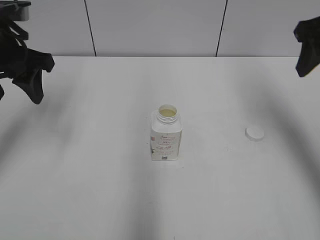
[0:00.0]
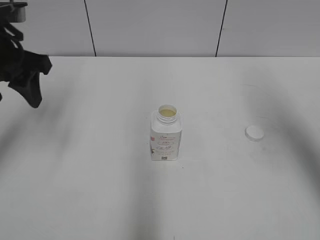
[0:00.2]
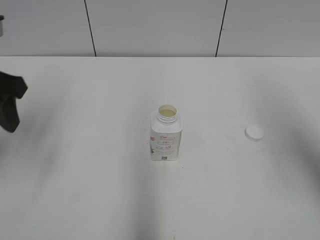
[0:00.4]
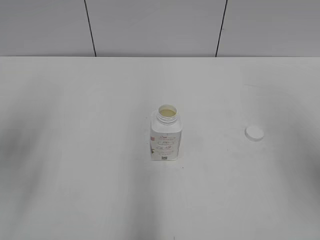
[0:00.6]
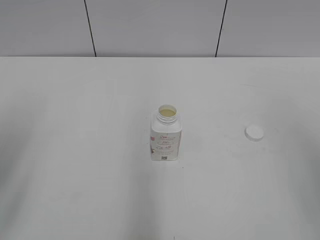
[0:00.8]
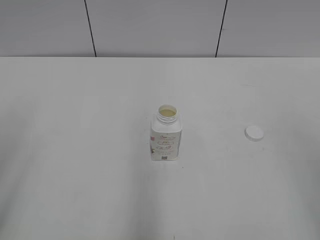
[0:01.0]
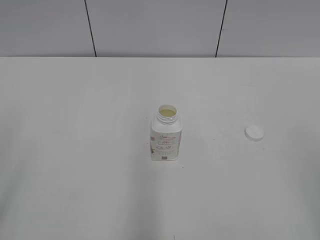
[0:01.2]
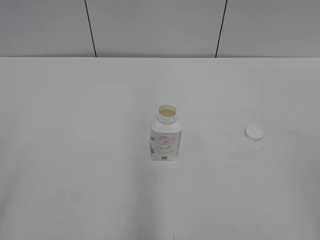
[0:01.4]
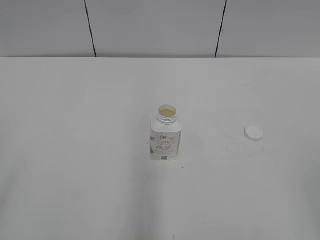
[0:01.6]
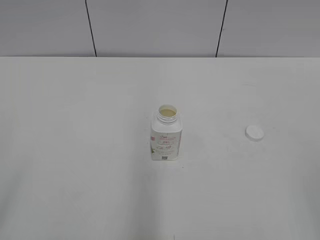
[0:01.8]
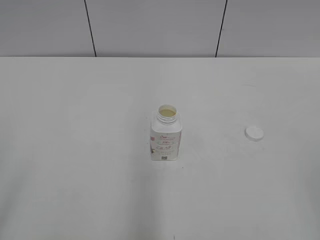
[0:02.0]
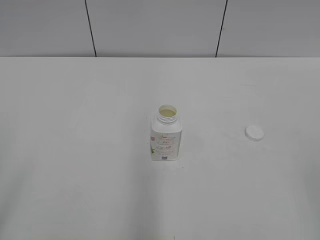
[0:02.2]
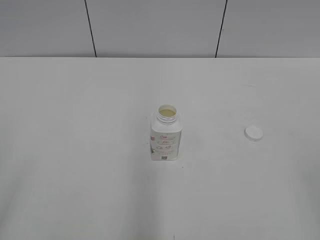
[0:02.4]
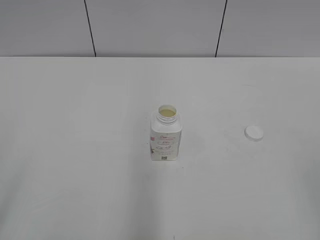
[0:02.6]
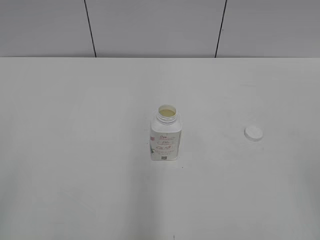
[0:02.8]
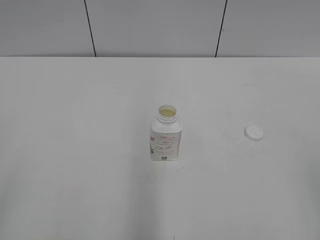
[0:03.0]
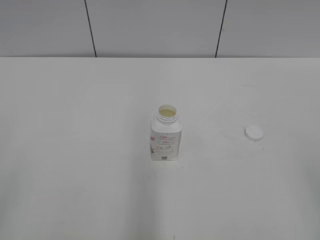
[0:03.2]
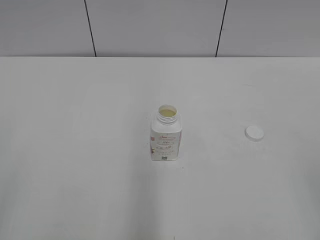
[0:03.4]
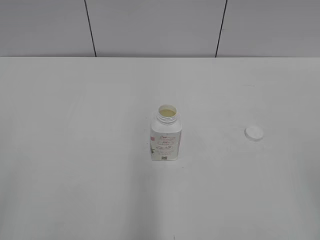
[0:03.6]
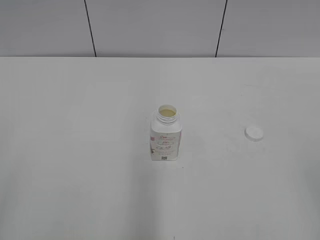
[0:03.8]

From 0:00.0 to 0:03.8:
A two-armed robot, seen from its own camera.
From 0:00.0 to 0:01.2: The grippers both shift backward by some 30 cm.

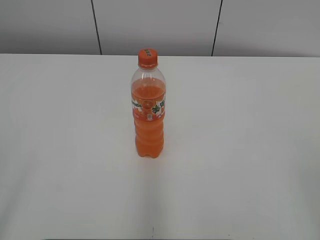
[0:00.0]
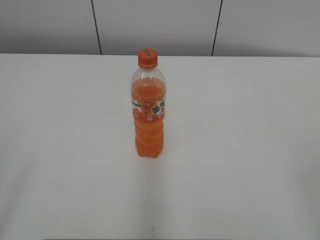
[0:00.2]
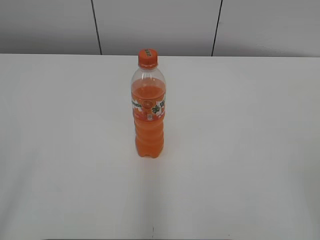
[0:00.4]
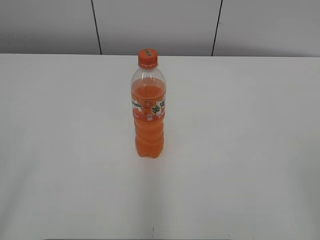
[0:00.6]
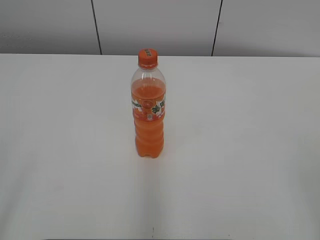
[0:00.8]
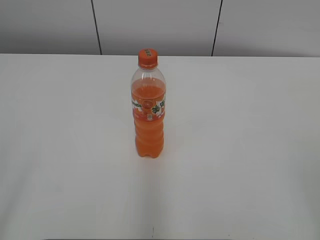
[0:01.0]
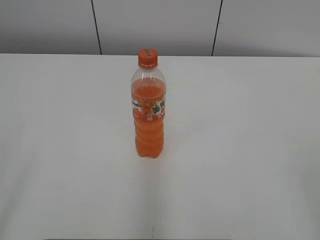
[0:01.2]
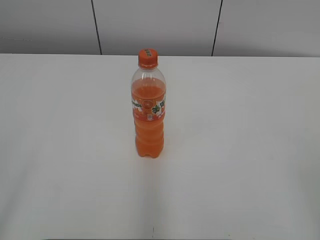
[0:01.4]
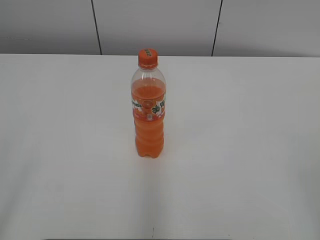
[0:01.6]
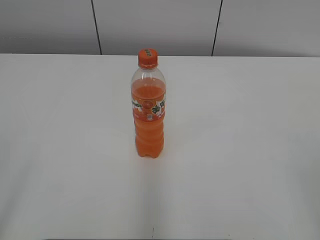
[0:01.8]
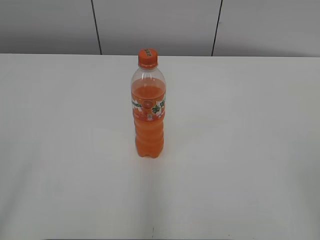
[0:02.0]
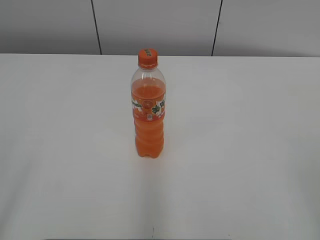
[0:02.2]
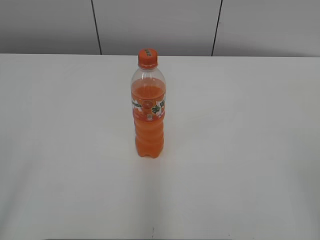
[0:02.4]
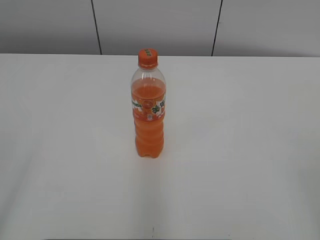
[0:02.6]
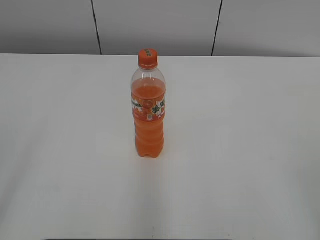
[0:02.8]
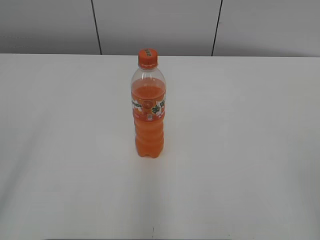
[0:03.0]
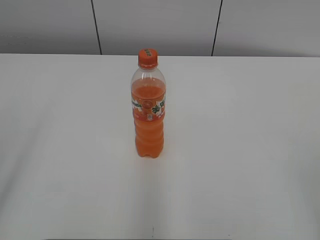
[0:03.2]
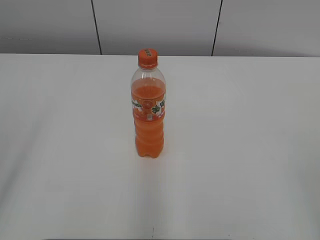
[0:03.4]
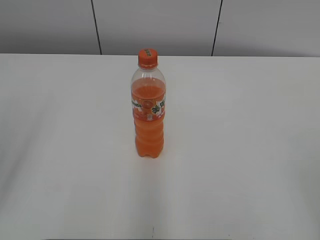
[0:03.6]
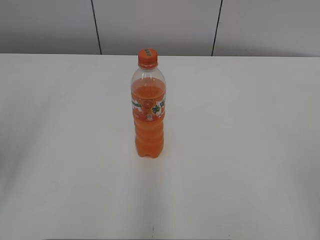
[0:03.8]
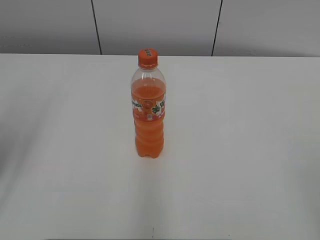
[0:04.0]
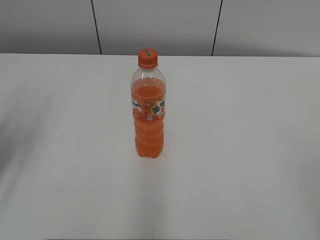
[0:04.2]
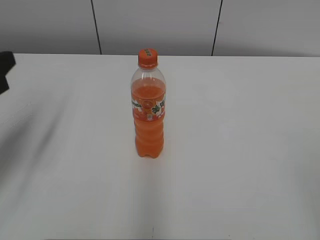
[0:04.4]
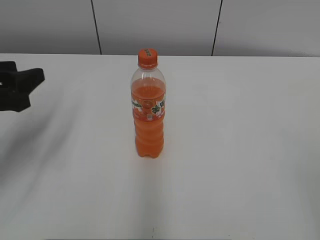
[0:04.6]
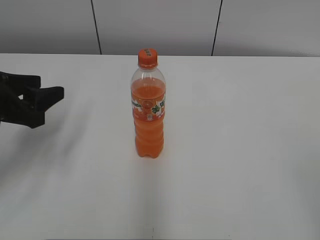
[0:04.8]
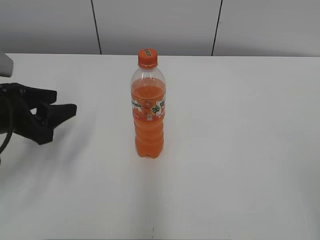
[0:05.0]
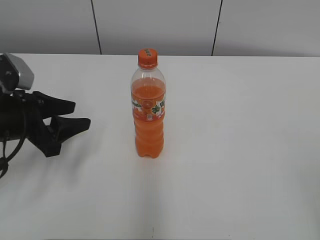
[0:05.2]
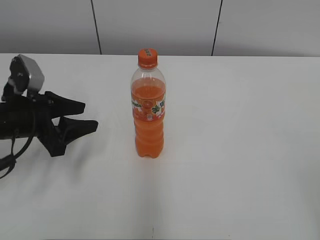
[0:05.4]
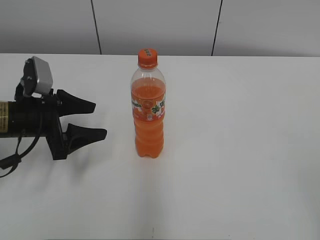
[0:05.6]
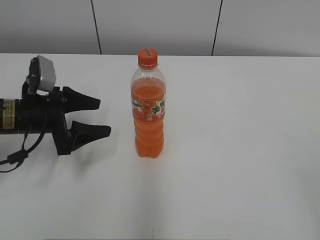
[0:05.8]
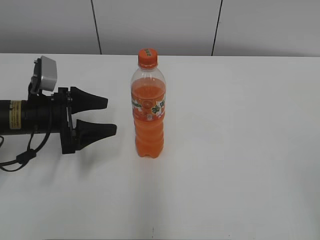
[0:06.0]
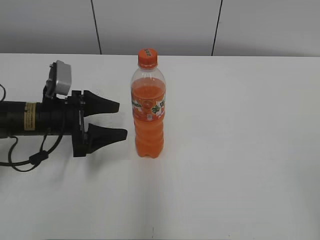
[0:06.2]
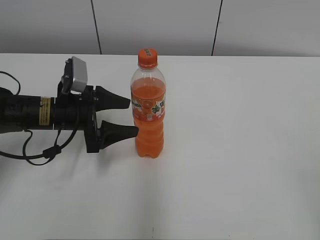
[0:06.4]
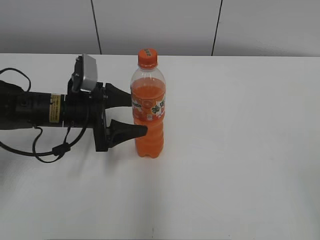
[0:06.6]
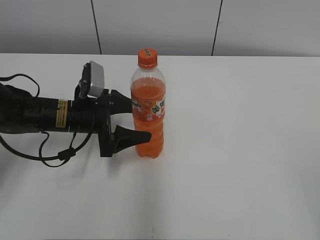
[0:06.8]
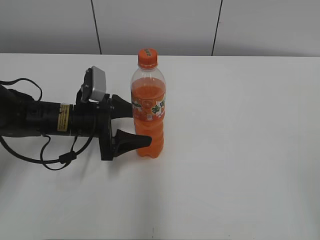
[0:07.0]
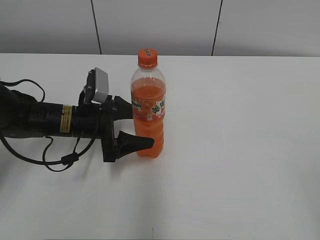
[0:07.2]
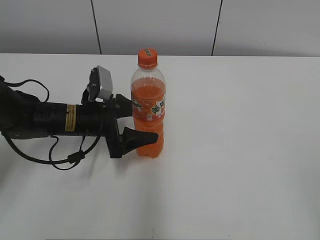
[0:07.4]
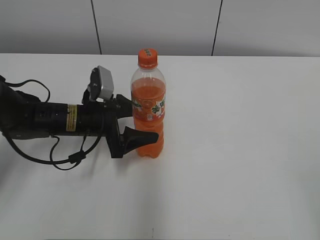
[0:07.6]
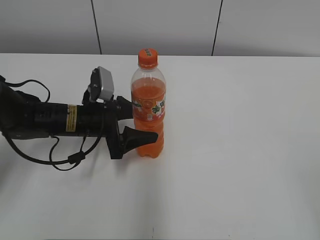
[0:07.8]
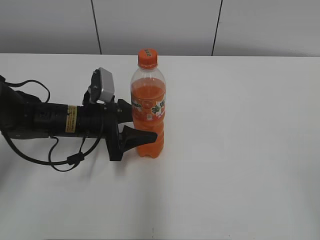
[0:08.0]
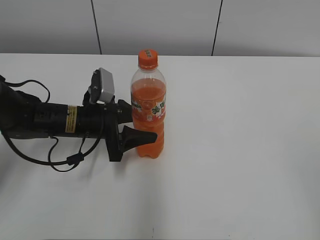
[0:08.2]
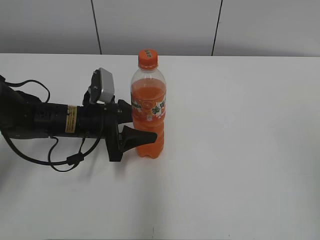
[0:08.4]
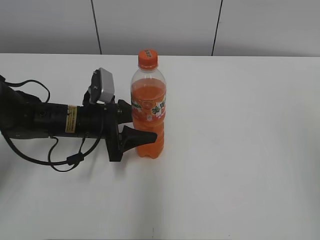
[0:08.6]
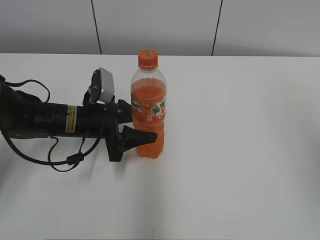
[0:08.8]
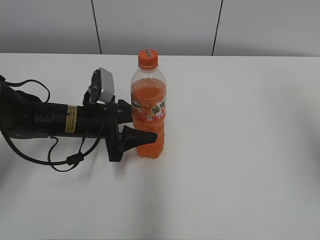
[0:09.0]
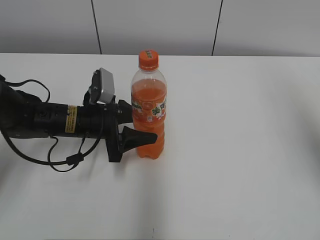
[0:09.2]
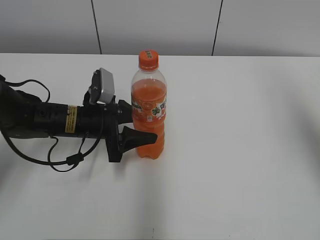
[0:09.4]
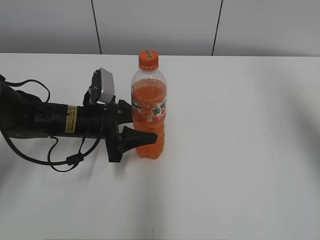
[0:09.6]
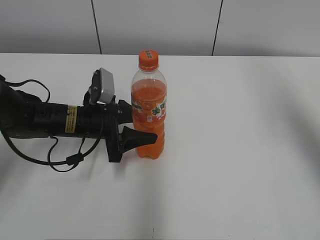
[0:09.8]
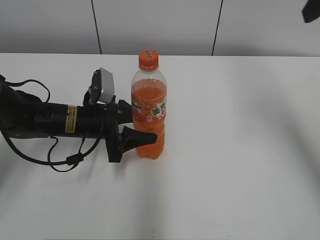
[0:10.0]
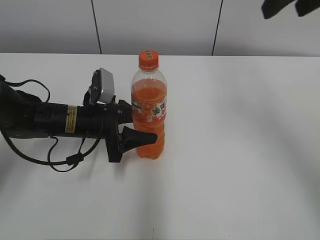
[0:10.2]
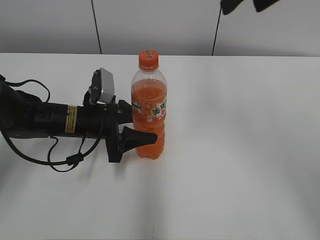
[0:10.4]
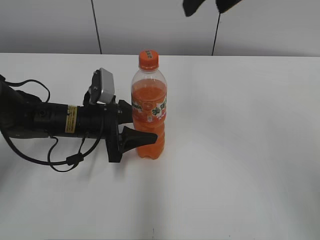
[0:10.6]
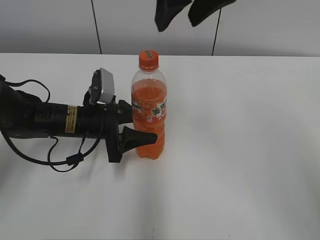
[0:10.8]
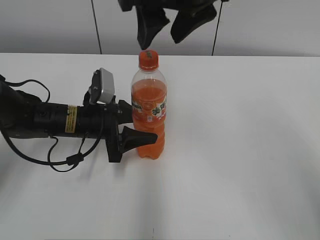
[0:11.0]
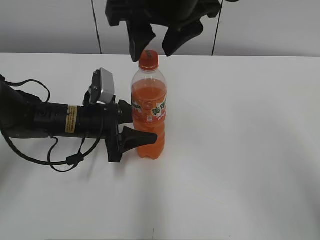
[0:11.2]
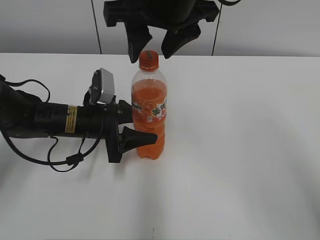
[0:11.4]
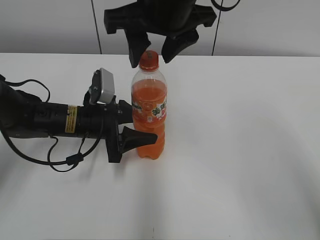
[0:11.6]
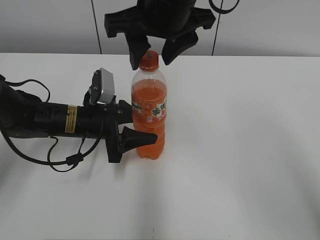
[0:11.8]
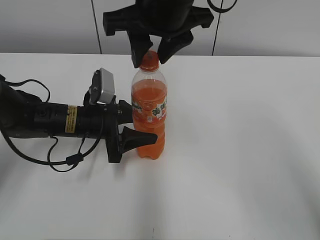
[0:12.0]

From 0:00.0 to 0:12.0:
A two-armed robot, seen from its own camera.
Step, from 0:00.0 to 0:08.6: Grab the Mirinda with the left hand.
From 0:03.0 to 0:04.4: The left gripper shifts some 20 cm forward and downward, and closes its fingers.
From 0:04.4 to 0:06.0: The left gripper goes about 15 cm downward, forward and to the right, and opens up.
From 0:06.0 to 0:07.6: The left gripper moves to the right, some 10 cm.
From 0:07.6 to 0:09.0: The left gripper closes; the right gripper goes about 20 cm forward and upward.
From 0:09.0 to 0:10.4: The right gripper heads to the left and forward, covering about 20 cm.
From 0:10.4 to 0:12.0: The right gripper travels to the left and downward by some 15 cm.

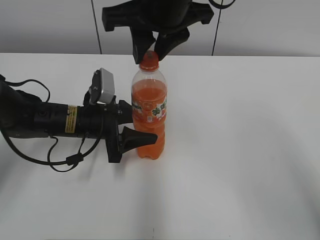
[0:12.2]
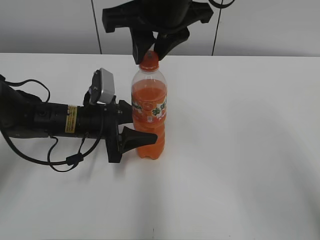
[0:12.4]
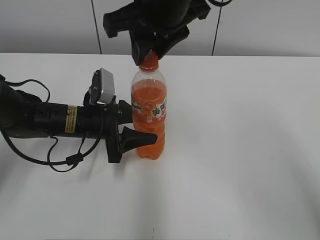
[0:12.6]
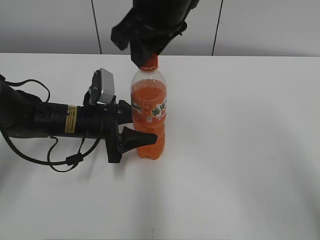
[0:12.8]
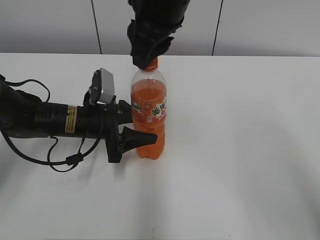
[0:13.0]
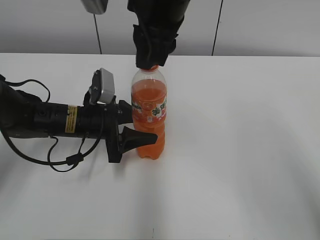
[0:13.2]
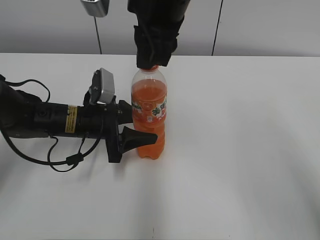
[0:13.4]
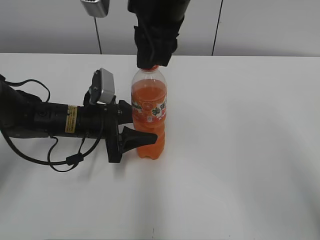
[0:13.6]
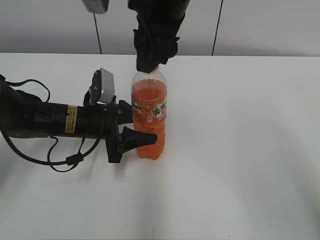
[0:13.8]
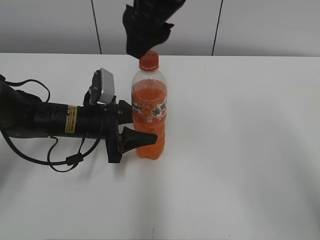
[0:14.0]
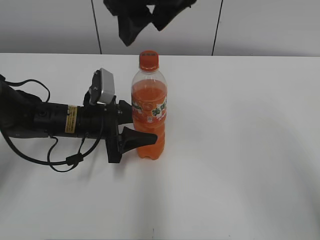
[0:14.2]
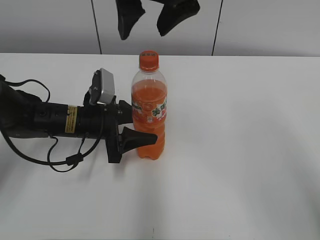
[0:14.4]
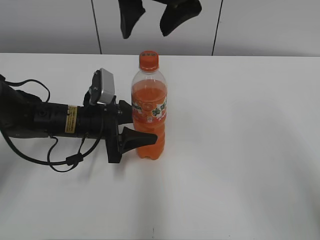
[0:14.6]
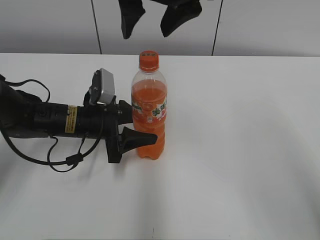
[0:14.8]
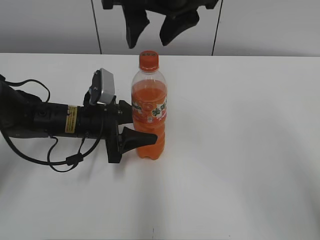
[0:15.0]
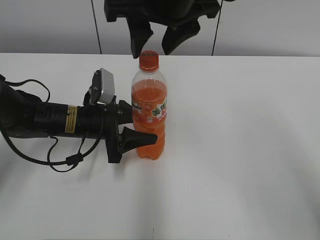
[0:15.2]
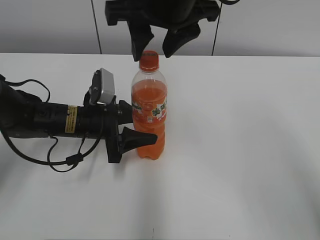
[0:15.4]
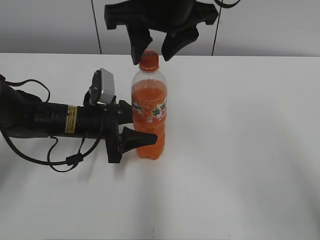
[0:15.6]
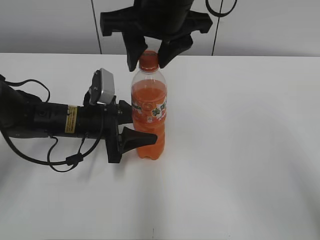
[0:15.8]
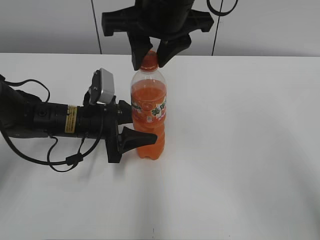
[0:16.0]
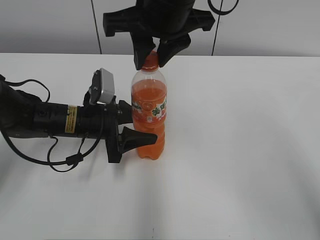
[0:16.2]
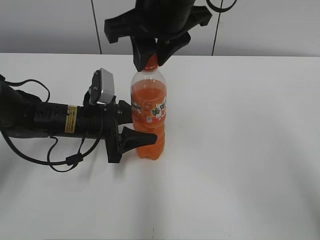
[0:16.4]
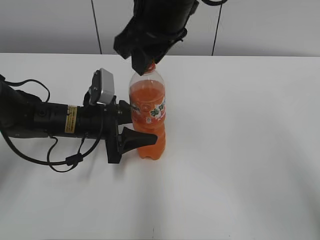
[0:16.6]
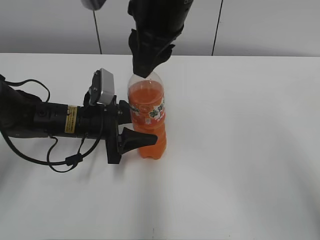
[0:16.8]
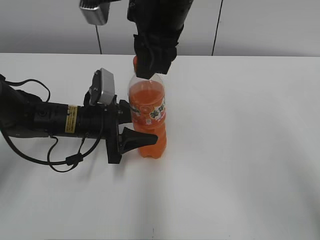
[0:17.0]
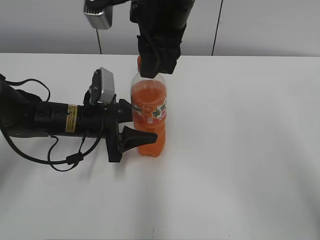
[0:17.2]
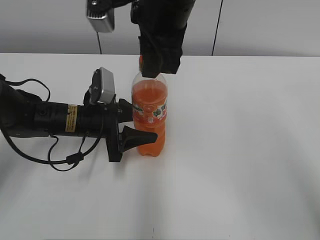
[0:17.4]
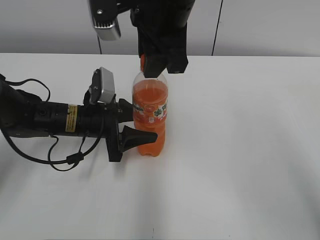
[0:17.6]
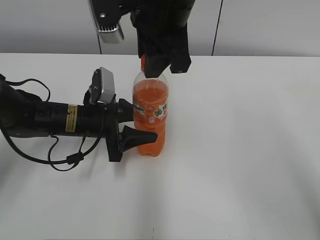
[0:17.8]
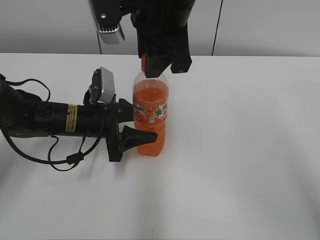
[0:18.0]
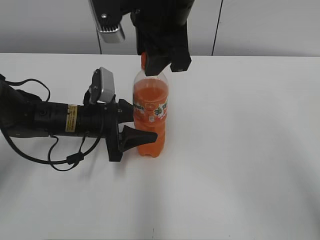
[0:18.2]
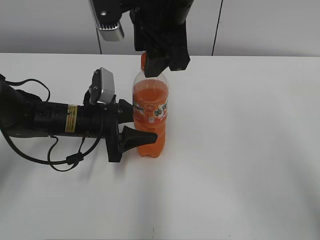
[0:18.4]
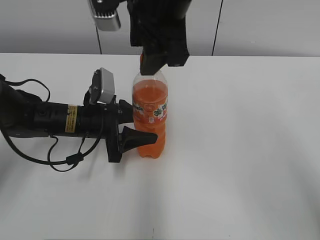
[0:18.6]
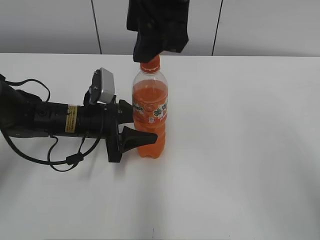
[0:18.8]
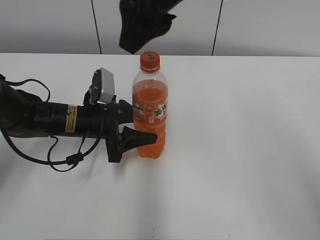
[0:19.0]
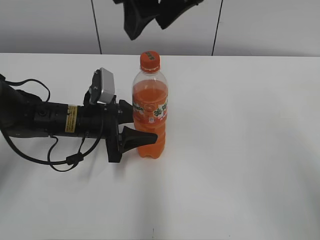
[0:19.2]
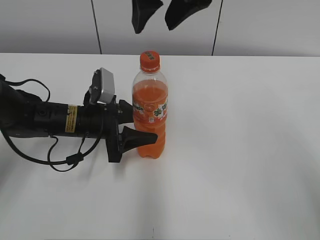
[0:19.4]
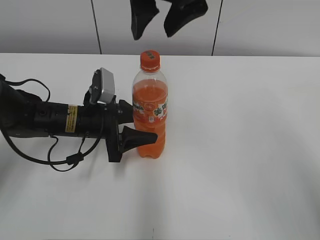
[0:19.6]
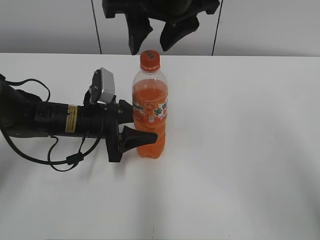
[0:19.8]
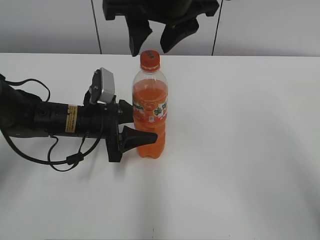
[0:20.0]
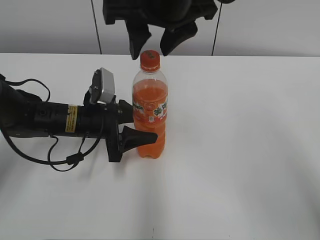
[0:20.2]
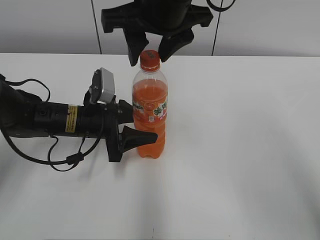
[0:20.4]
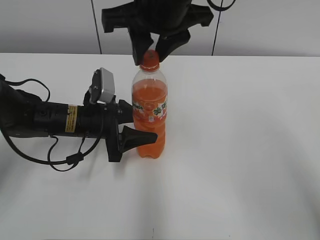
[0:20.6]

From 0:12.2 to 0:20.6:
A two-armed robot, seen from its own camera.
From 0:13.6 to 0:15.0: The right gripper opens.
From 0:15.0 to 0:16.4: The right gripper closes up.
From 0:17.8 to 0:19.2: The right gripper goes some 5 cm upward, and opens its fingers.
From 0:19.2 to 0:20.6: The right gripper goes approximately 5 cm downward, and closes.
